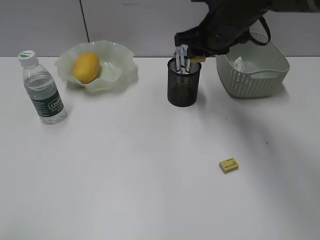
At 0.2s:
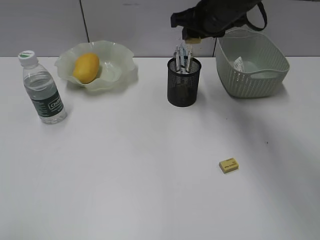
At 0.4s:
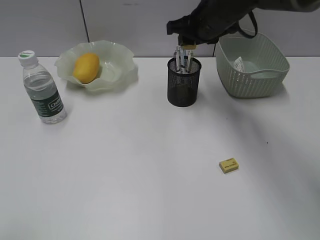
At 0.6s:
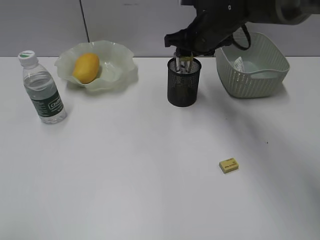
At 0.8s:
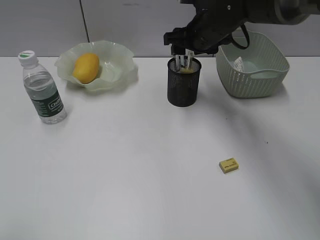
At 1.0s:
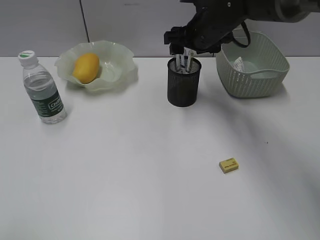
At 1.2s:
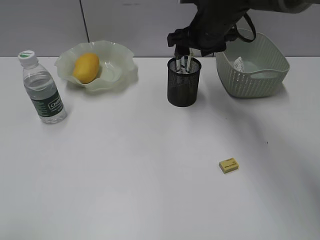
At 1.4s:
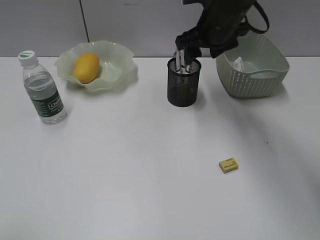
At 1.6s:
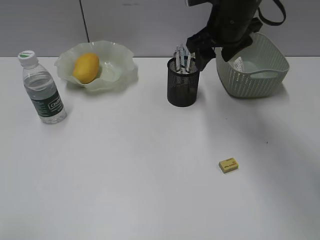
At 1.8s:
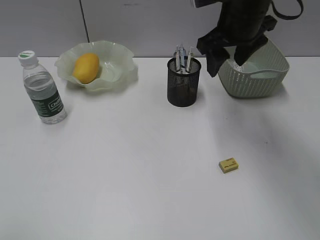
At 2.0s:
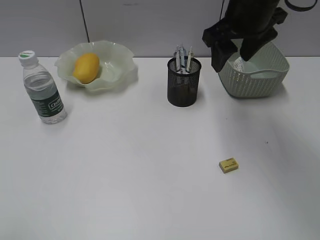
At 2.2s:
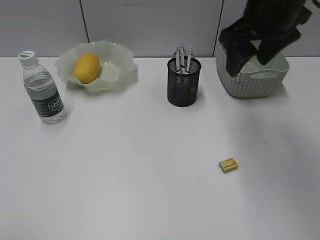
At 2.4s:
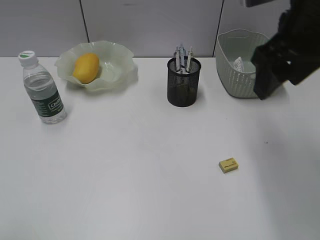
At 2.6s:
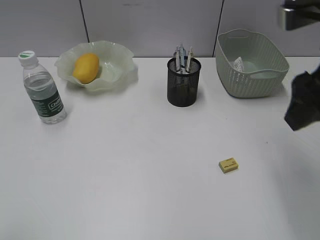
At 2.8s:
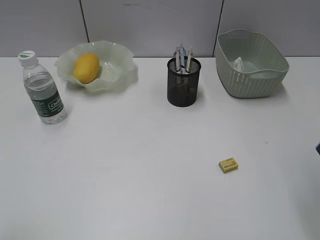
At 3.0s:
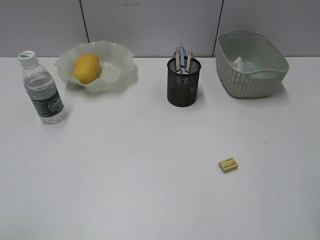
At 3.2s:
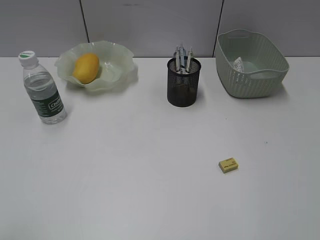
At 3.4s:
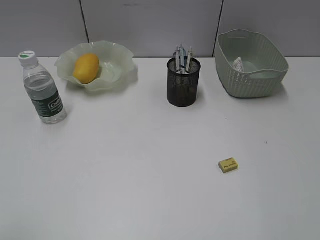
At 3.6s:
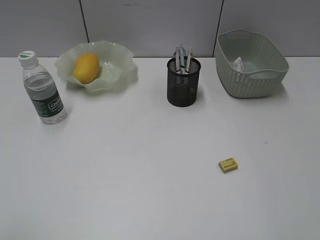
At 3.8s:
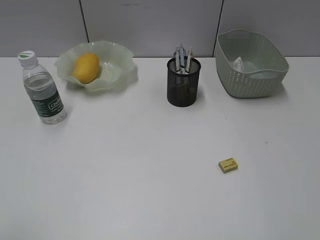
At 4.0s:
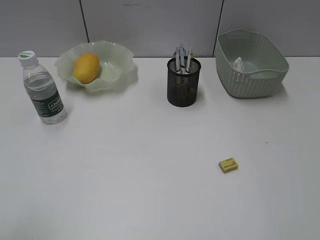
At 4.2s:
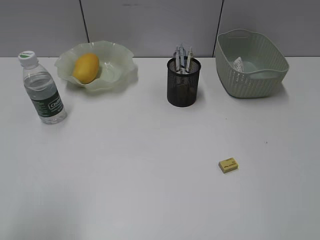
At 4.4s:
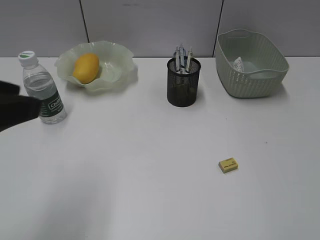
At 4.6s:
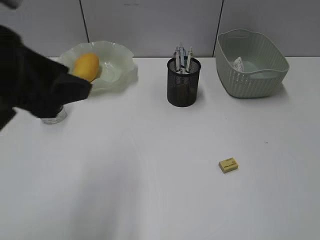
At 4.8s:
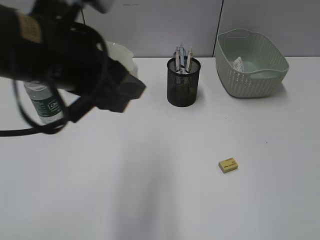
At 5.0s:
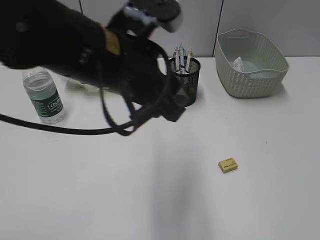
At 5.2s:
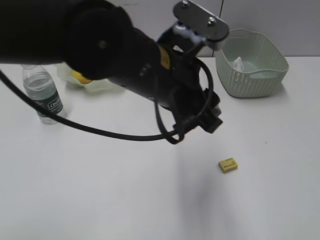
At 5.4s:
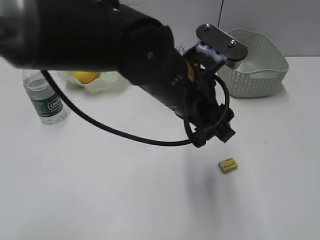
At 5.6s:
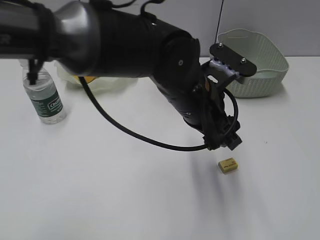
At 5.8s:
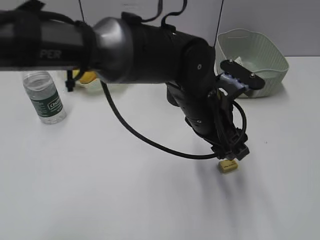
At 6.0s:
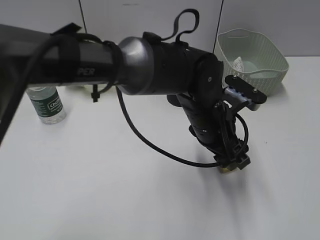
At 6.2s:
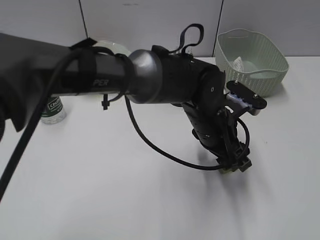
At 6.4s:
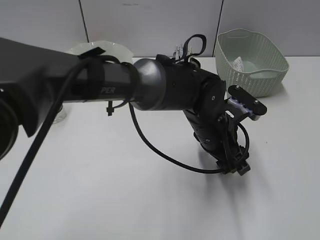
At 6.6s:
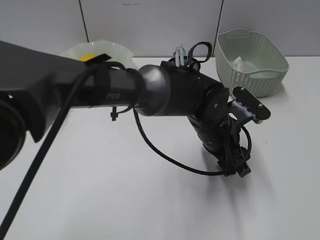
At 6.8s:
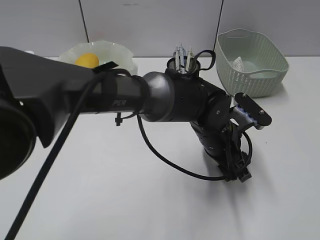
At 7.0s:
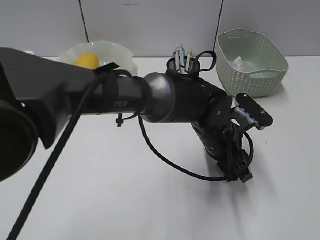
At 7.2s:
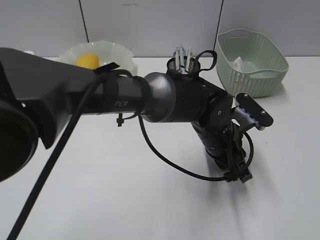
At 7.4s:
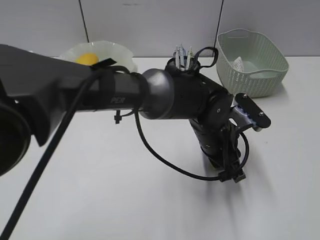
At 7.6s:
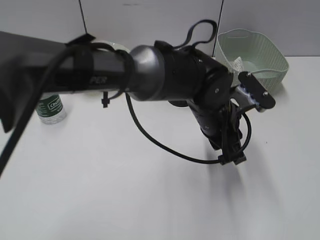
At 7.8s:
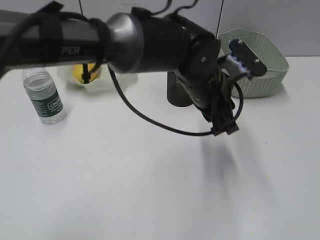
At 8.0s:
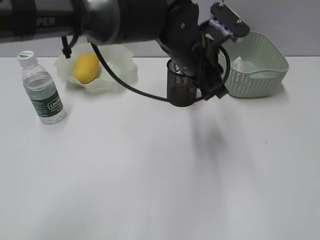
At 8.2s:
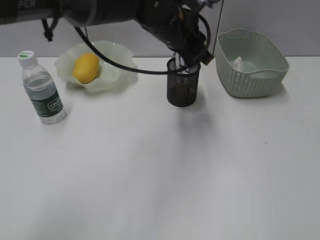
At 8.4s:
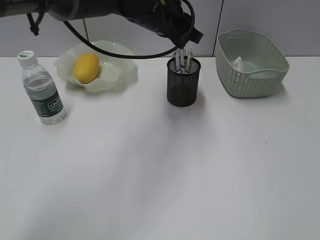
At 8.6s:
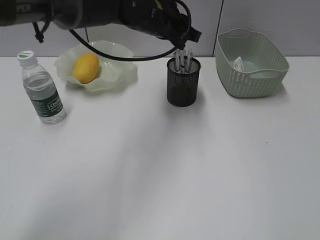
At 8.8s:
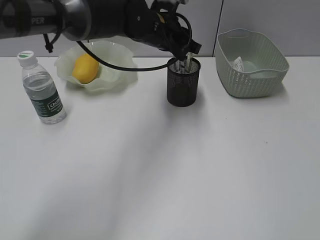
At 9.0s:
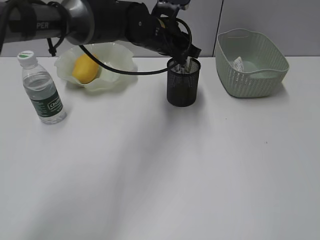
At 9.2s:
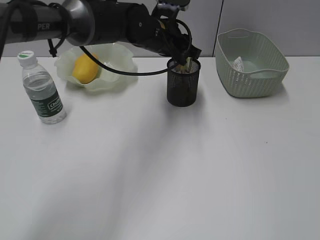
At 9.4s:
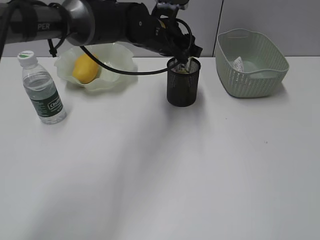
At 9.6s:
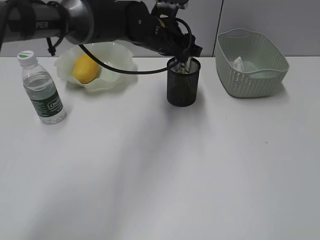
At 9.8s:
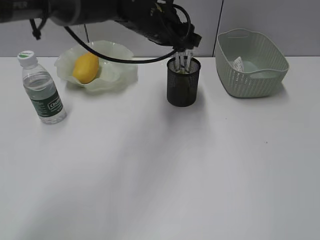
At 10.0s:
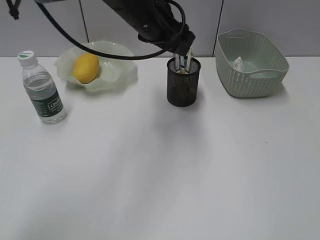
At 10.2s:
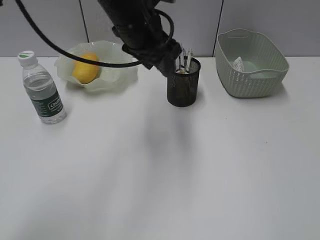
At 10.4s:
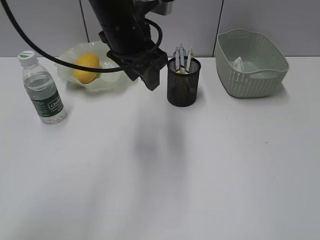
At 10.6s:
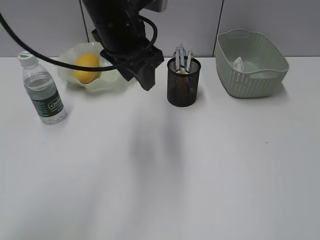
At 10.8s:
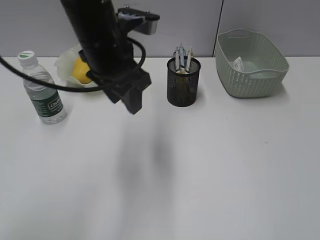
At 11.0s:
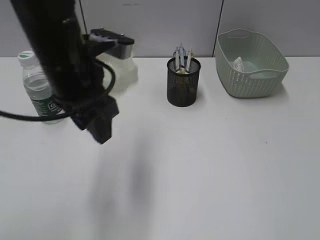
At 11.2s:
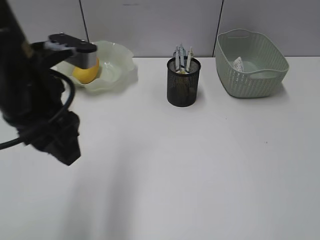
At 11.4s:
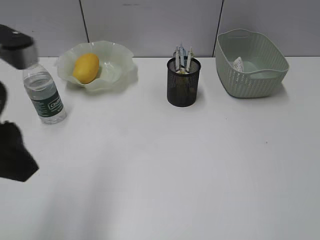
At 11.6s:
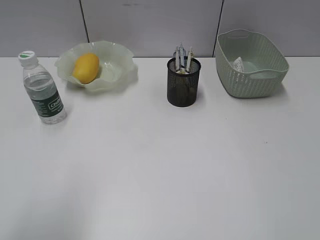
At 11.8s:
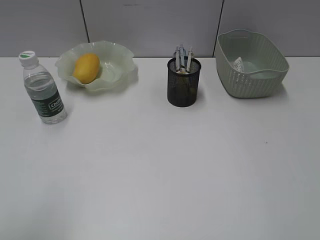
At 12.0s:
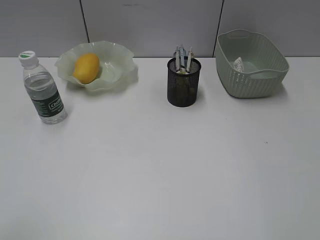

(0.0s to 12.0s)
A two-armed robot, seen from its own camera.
Step, 0.0s - 0.8s: Place the eraser in pen holder with right gripper.
Step, 1.0s - 7.2s: Grasp the eraser with left gripper.
Step, 7.4s - 9.4s: Place the eraser in pen holder with left gripper.
0.0s - 1.6s: The right gripper opens its fingers.
1.6s - 3.0s: The right gripper heads backward and to the right, covering some 30 cm.
3.0s - 4.4s: The left gripper is displaced forward and to the right by about 15 cm.
4.4s - 6.0s: The left gripper shifts some 35 cm to the right, downward and forward.
6.0s - 7.6s: The left gripper closes its fingers.
7.6s - 9.0s: The left gripper shifts about 20 cm forward, to the left and upward.
9.0s - 10.4s: The left gripper shifts about 10 cm backward and upward, and opens up.
10.4s - 12.0s: The left gripper moves backward and to the left, approximately 40 cm.

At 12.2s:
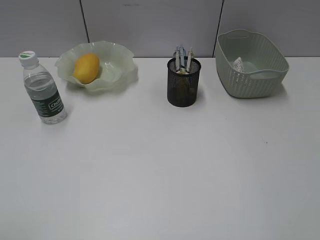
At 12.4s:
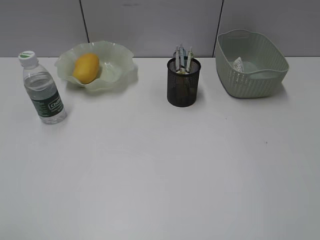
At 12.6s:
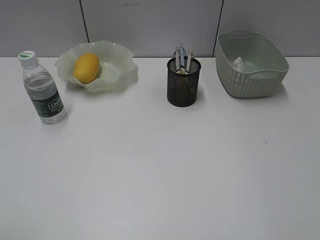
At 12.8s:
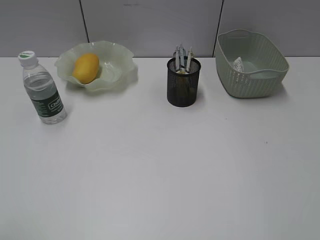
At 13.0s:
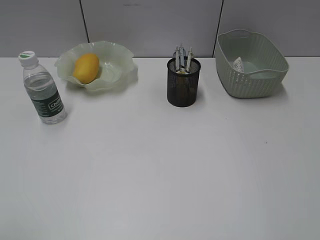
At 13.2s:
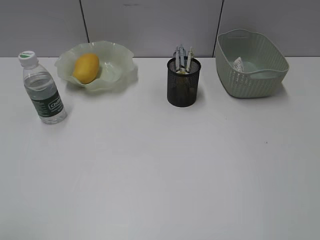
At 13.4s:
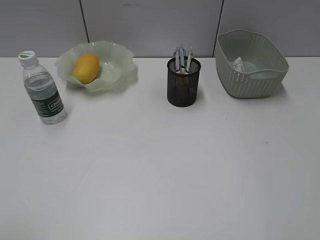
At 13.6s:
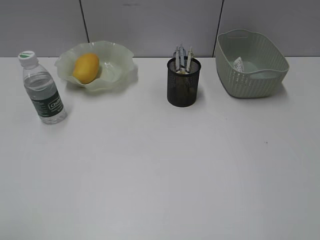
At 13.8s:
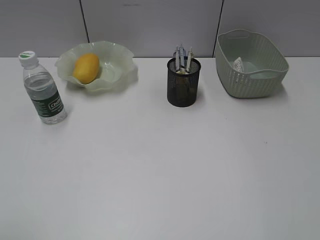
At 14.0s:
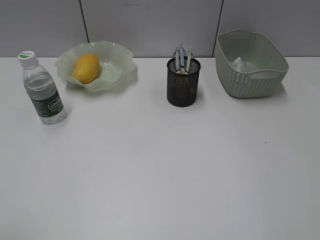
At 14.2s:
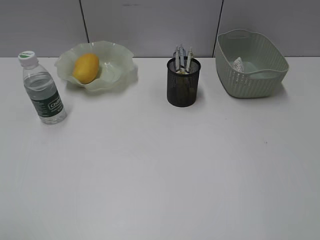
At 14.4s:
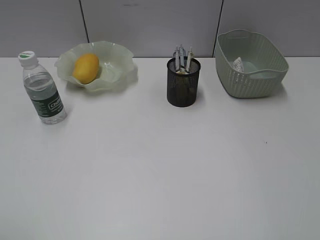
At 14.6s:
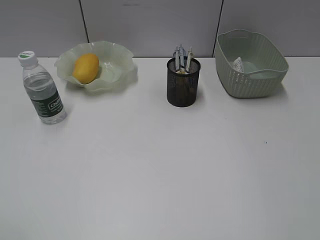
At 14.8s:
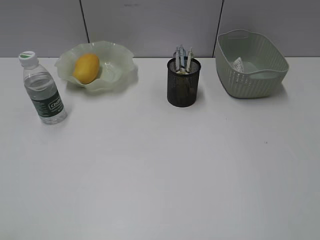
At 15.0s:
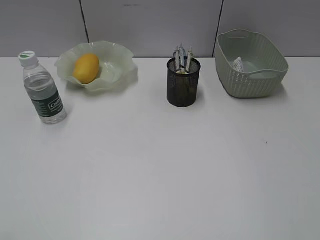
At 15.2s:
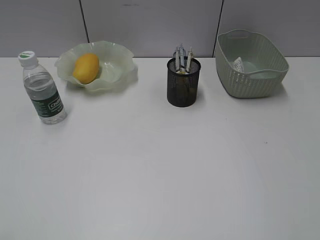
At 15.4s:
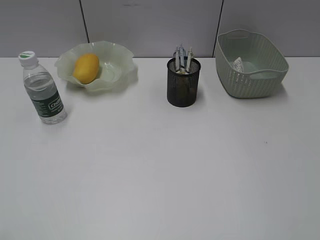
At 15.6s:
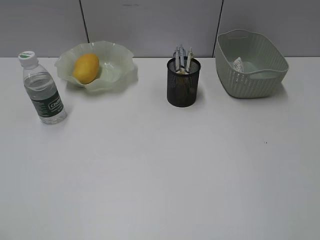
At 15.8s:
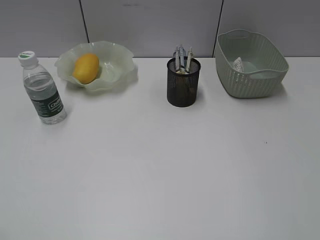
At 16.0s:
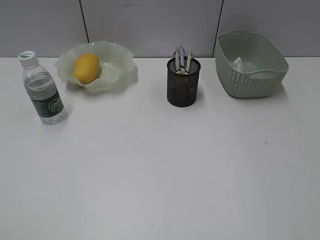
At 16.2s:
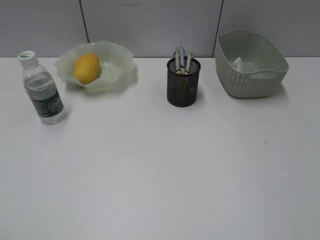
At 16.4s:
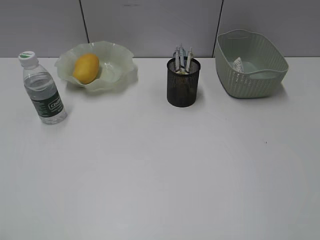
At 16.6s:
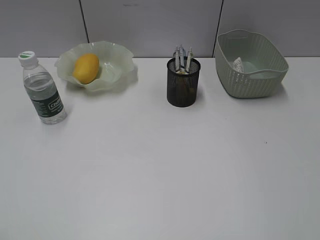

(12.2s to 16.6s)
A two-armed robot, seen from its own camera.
15.2s - 16.6s: Both grippers stay about where they are.

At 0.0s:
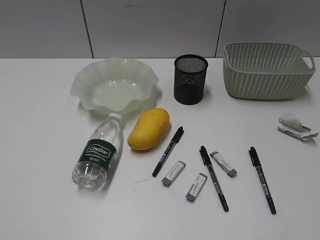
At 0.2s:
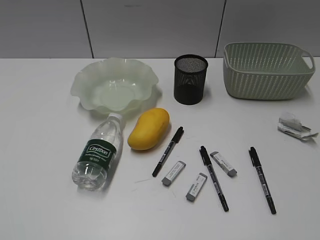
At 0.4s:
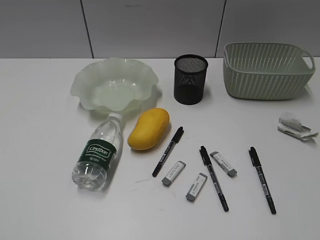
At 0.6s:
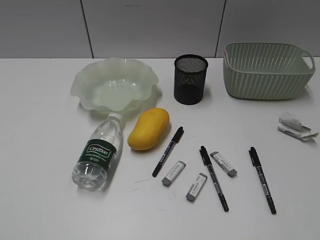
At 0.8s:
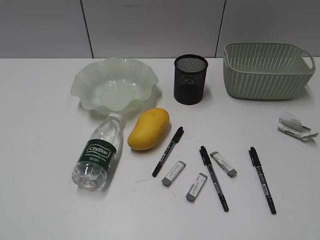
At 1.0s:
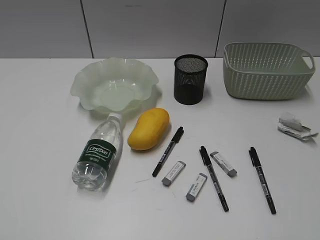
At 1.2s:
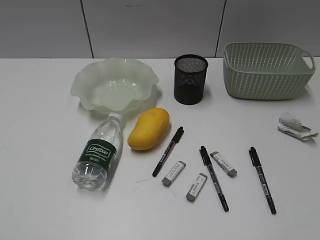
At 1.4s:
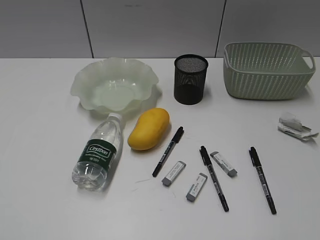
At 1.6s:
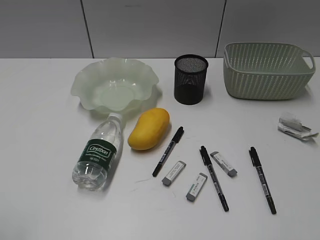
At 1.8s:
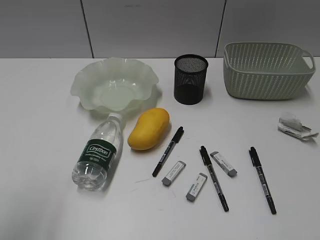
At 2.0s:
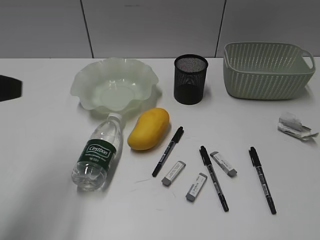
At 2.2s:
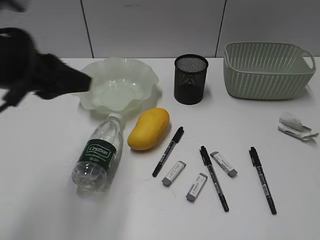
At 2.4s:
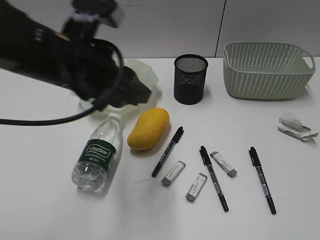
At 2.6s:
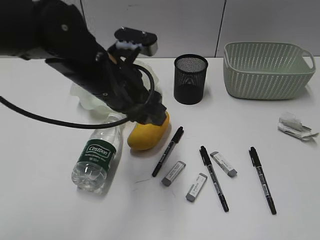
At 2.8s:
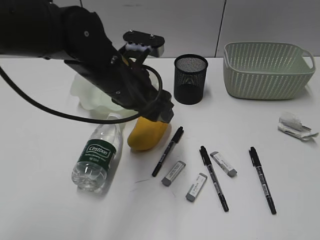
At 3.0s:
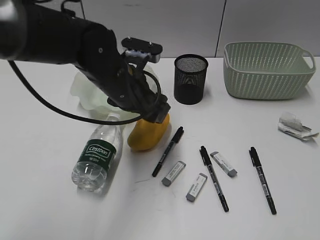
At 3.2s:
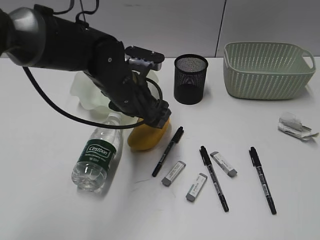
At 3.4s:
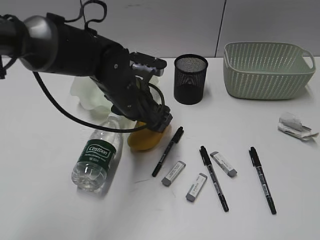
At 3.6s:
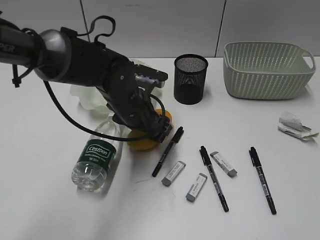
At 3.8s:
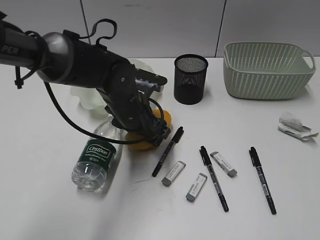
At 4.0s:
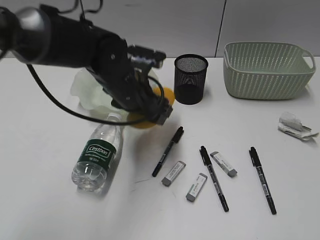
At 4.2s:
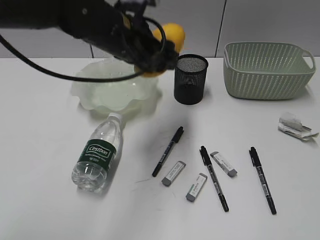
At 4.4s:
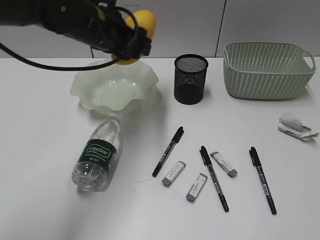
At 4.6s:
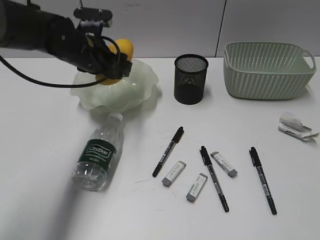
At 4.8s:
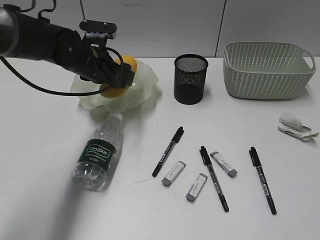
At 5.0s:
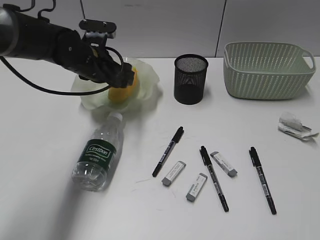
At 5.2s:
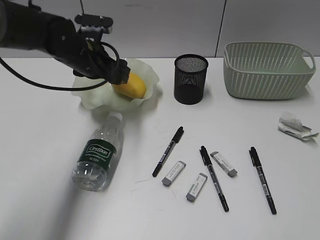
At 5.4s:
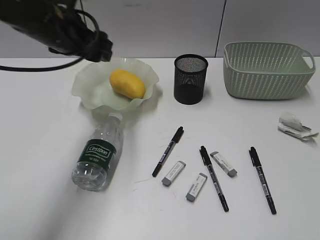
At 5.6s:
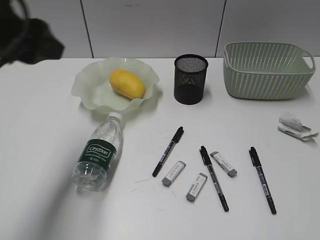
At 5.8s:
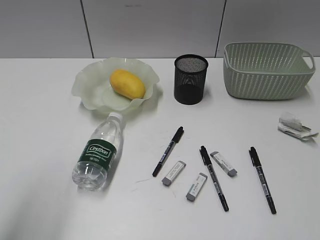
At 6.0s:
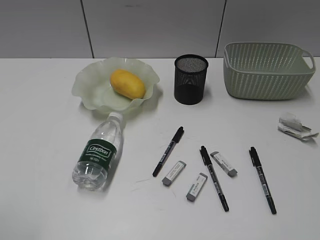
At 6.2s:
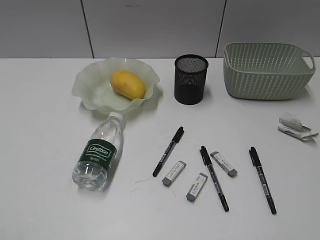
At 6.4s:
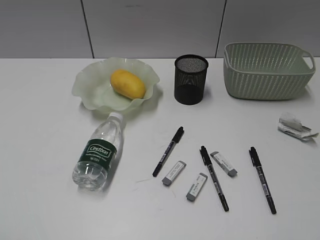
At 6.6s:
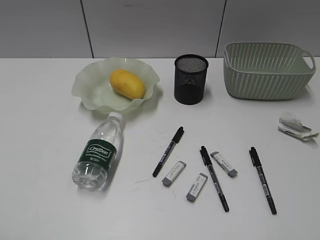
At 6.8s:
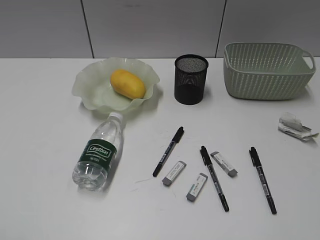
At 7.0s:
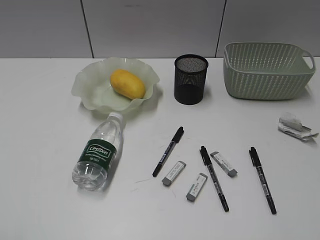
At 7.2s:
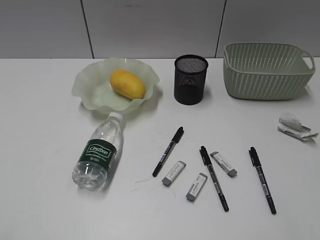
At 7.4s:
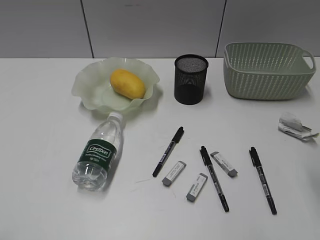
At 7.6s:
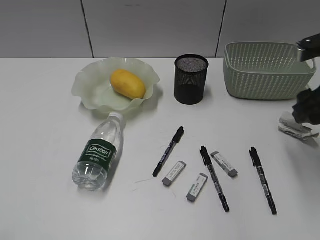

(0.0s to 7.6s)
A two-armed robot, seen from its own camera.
Step, 1.2s - 3.8s: Grasp the mango with left gripper.
Step, 4.0s - 5.2s: Place the mango in the plate with left gripper.
1.6s - 3.0s: The left gripper travels forward and to the right by some 40 cm, and opens up.
3.0s - 4.6s: The left gripper swings up and down, roughly 15 cm each way, with 2 reversals.
4.6s - 6.0s: The left gripper is displaced backward and to the left by about 40 cm.
6.0s - 7.6s: The right gripper shifts some 25 cm forward, and opens.
